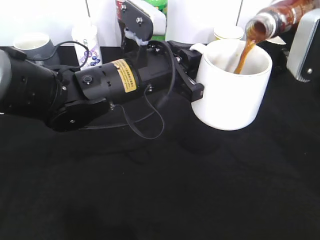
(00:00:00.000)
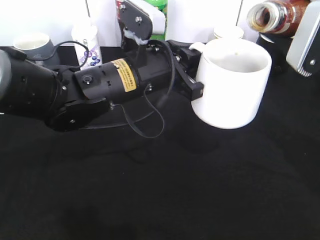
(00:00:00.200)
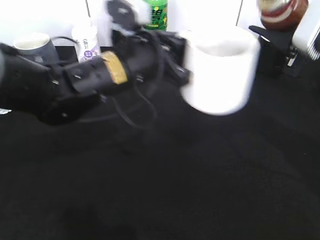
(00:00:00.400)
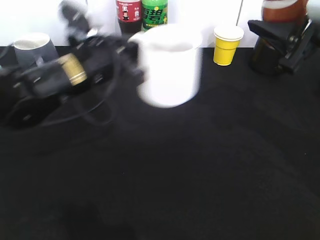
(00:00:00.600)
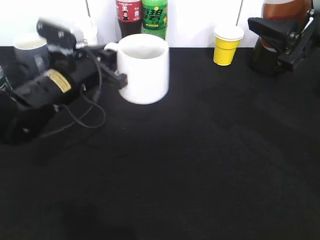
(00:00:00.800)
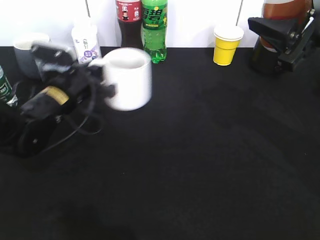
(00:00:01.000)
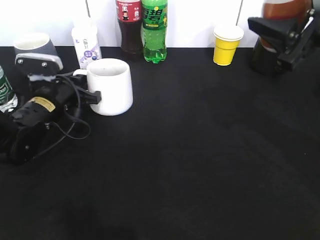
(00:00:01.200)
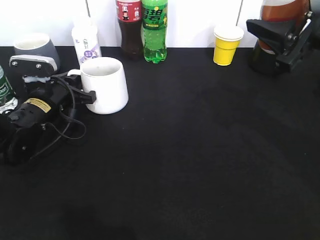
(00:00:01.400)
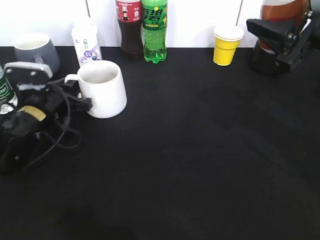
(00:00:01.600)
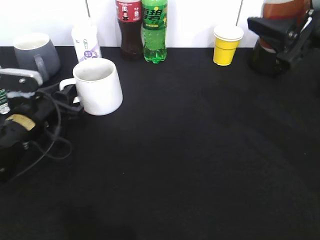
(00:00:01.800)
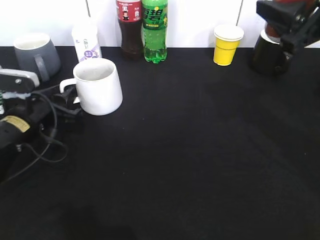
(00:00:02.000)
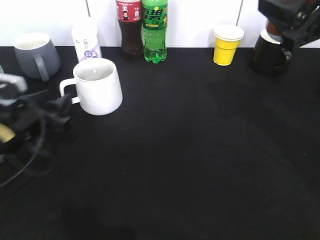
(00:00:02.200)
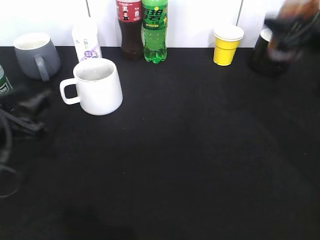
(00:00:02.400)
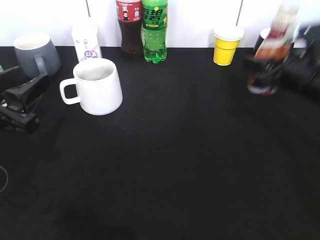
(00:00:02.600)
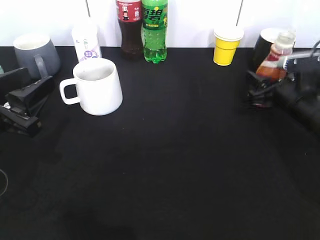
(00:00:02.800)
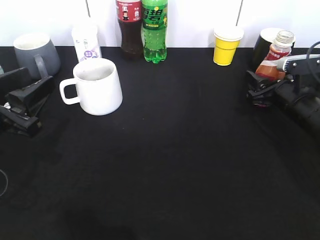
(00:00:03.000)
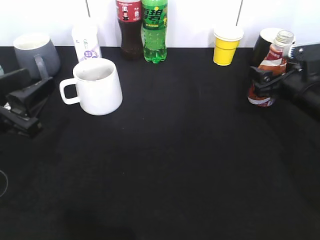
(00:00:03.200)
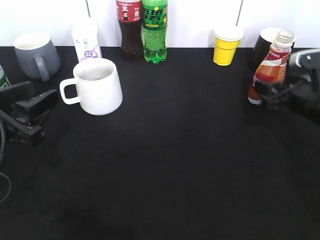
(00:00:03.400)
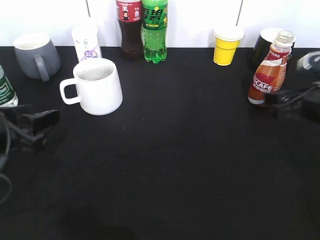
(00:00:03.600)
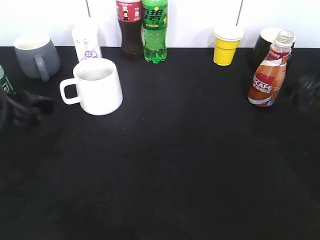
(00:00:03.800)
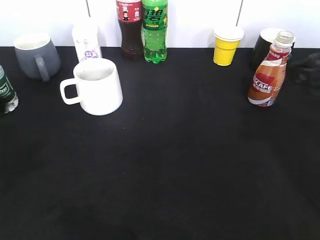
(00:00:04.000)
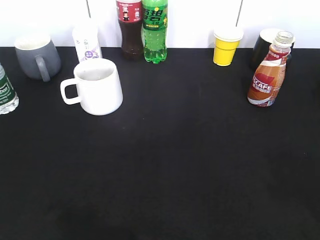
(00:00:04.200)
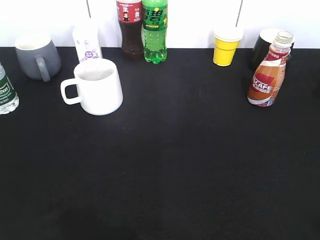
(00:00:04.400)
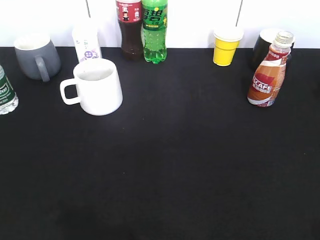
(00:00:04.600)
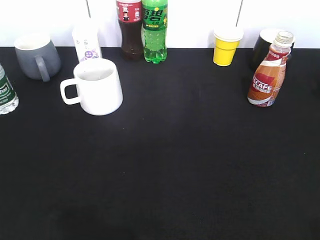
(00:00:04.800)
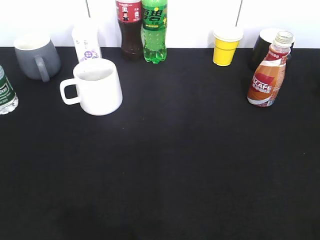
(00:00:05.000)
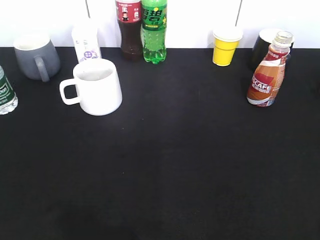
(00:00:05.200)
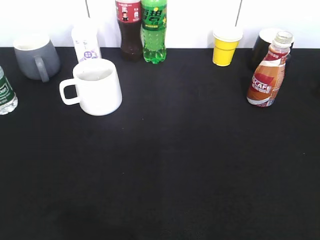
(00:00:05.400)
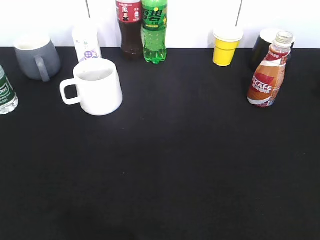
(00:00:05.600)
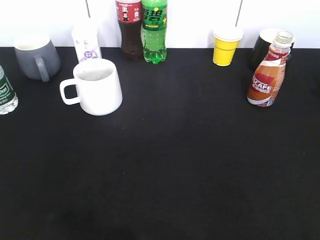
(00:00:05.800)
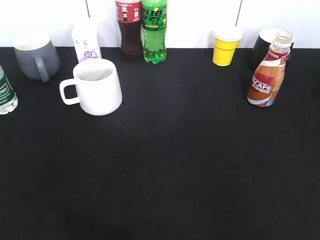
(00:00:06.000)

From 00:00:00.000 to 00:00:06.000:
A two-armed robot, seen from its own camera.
Step, from 00:00:00.600 to 00:00:02.200: Place the white cup on the table with left gripper.
Step, from 00:00:02.400 to 00:00:03.400: Place the coffee bottle on the table with right gripper.
From 00:00:00.000 to 00:00:01.600: The left gripper goes some 20 cm to the left and downward.
From 00:00:01.600 to 00:00:03.000: The right gripper goes about 20 cm downward and forward. Meanwhile the left gripper heads backward and upward, covering approximately 15 cm, and opens its fingers.
From 00:00:03.000 to 00:00:04.400: The right gripper shifts some 40 cm backward and upward, and opens and closes again. The left gripper moves backward, upward and to the left, approximately 25 cm.

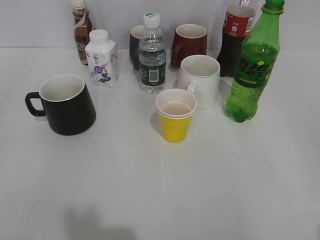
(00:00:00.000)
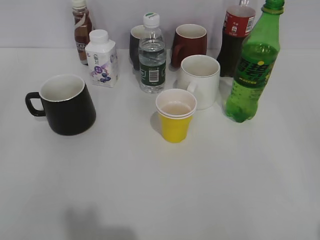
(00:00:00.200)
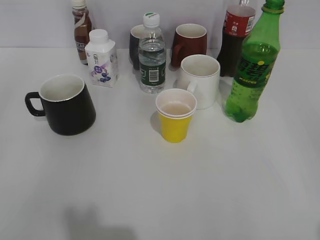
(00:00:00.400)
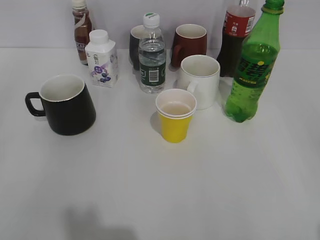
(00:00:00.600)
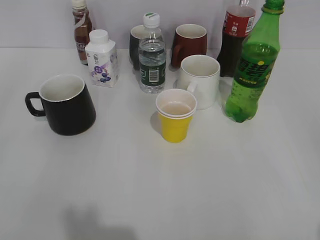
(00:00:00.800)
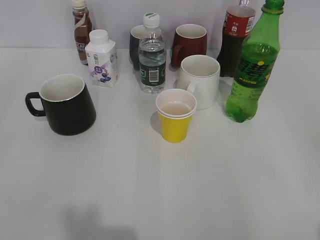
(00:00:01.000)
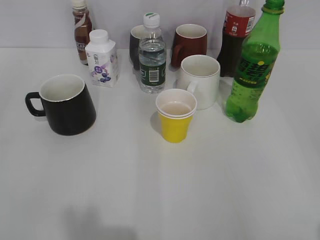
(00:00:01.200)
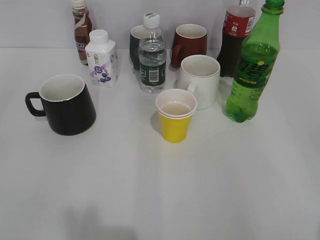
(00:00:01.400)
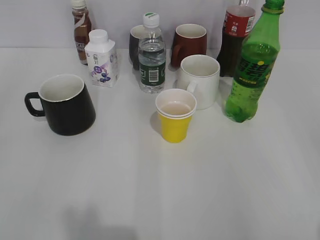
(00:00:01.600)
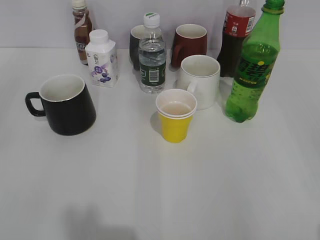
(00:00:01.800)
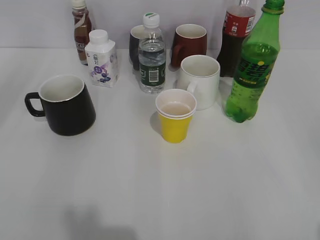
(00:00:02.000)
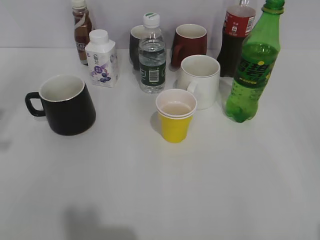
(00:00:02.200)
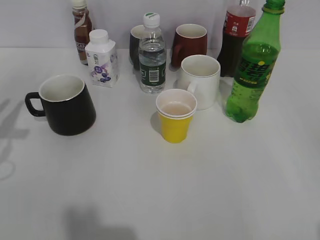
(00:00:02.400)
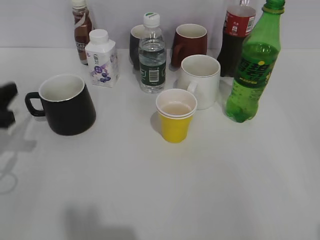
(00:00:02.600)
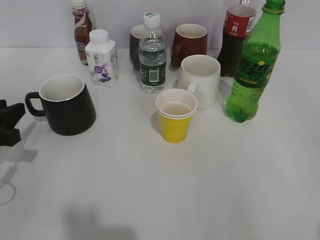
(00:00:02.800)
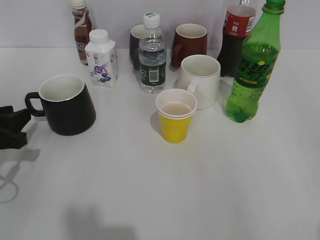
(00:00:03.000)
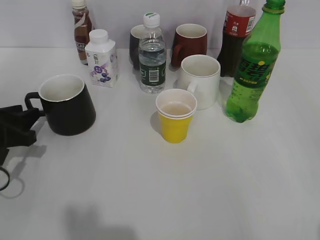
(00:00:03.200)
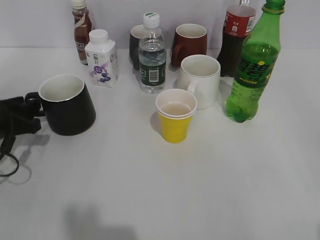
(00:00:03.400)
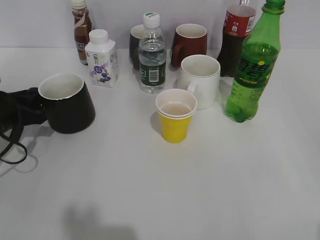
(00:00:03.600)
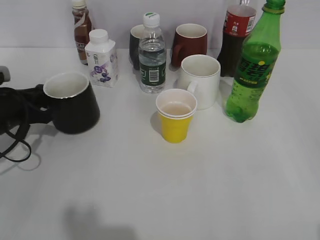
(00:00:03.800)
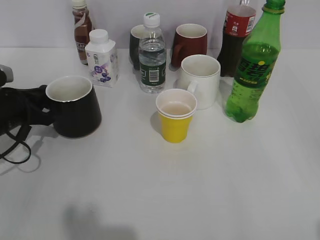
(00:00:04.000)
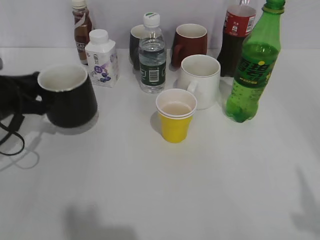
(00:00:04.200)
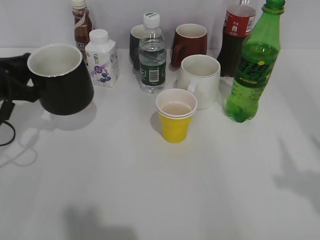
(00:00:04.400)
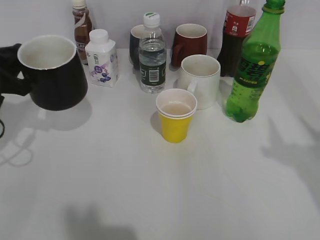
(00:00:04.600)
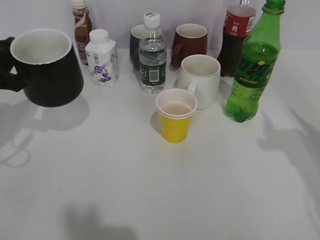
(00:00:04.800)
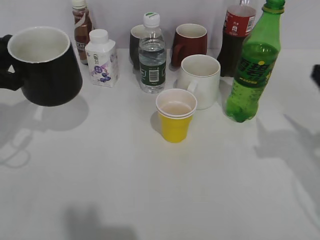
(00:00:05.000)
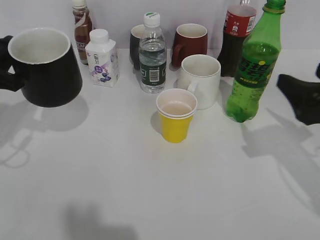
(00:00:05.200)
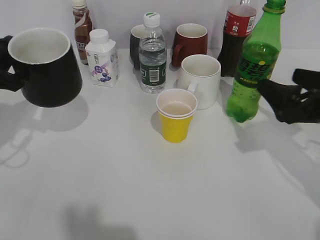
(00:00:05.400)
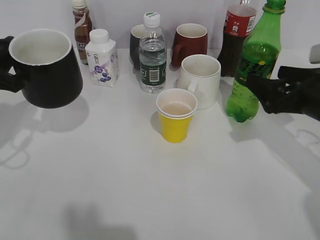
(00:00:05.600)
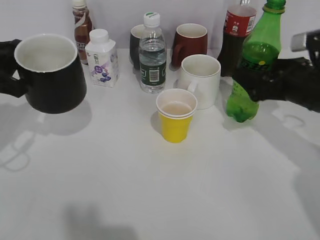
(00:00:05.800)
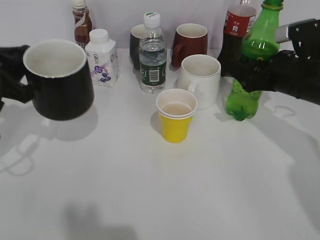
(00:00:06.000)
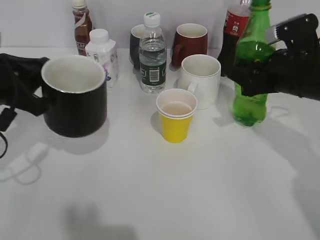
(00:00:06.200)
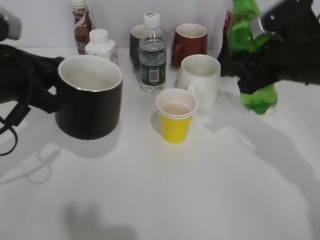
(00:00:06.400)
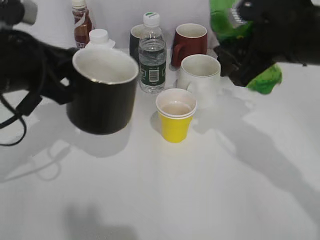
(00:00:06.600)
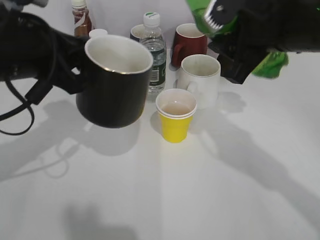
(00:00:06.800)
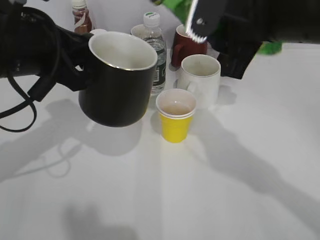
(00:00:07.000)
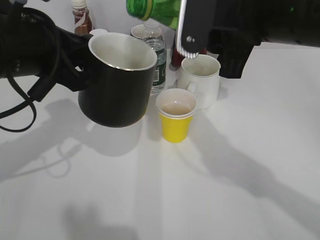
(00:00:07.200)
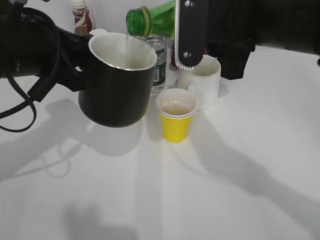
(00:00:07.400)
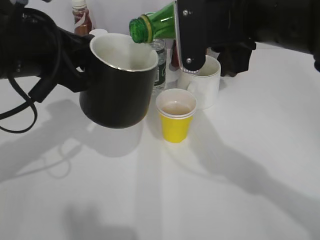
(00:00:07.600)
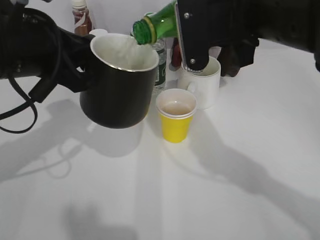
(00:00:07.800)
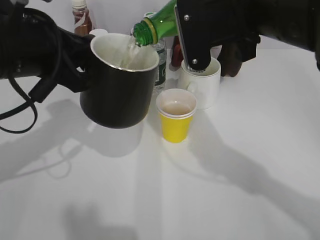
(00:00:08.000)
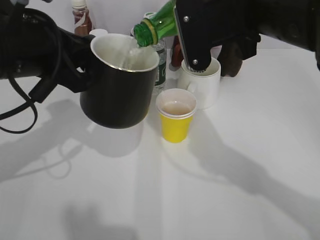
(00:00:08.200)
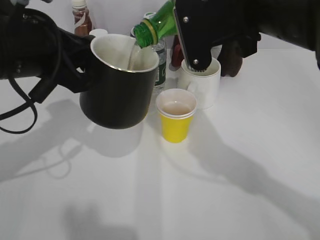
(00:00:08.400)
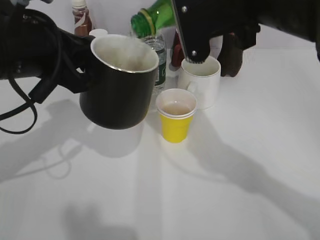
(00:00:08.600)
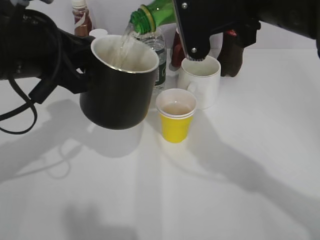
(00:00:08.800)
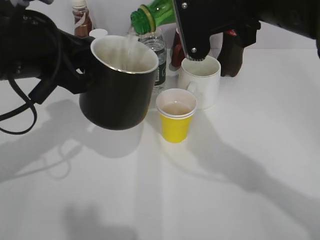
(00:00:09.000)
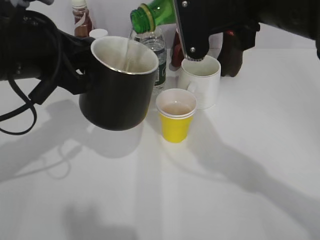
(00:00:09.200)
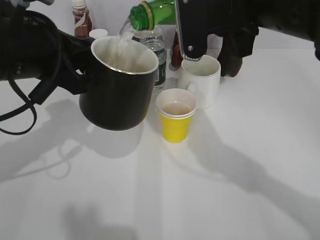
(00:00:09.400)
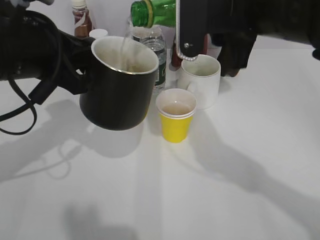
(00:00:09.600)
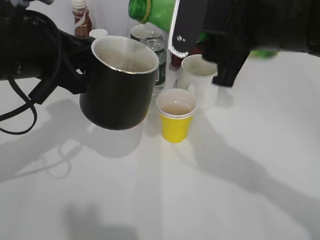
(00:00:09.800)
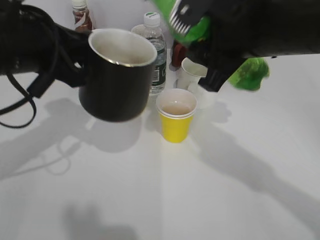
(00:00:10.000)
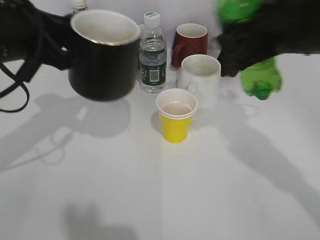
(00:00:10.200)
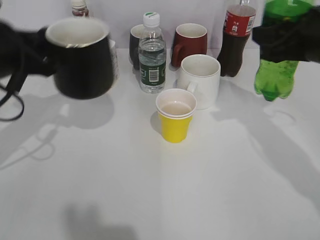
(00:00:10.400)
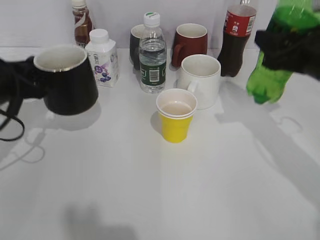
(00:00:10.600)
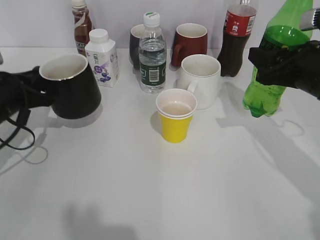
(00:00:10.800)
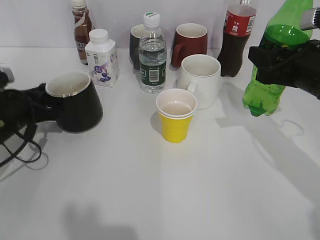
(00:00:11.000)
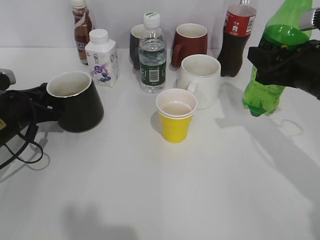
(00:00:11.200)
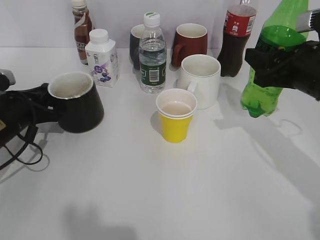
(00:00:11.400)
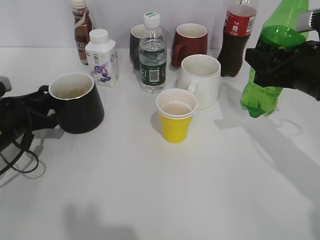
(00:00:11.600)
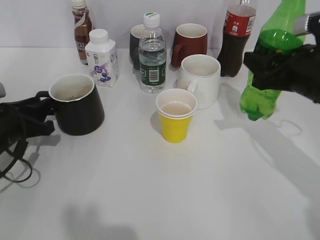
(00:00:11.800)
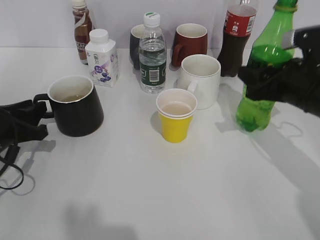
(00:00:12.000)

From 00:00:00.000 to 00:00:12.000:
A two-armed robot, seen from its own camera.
Step, from 00:00:01.600 to 00:00:03.600: Grasp the black cup with left gripper.
Step, from 00:00:03.800 to 00:00:04.800: Lift the black cup with left gripper.
Step, from 00:00:05.000 to 00:00:06.000: Grasp the bottle with sprite with right gripper.
Step, from 00:00:06.200 to 00:00:09.800: Pour the sprite from bottle to cup with right gripper.
Step, from 00:00:10.000 to 00:00:11.400: Place the black cup on the table with left gripper.
From 00:00:01.600 to 00:00:03.000: The left gripper moves forward and downward, some 25 cm.
From 00:00:03.000 to 00:00:04.400: The left gripper heads forward, covering about 5 cm, and closes.
From 00:00:04.400 to 00:00:06.000: The right gripper shifts roughly 30 cm forward and downward, and opens, then closes again.
From 00:00:06.000 to 00:00:07.600: The left gripper shifts roughly 10 cm to the right and upward. The right gripper travels to the left, upward and backward by approximately 20 cm, and closes up.
From 00:00:07.600 to 00:00:09.000: The grippers move only a little.
From 00:00:09.000 to 00:00:10.400: The right gripper is displaced to the right and downward by roughly 15 cm, while the left gripper goes approximately 5 cm to the left.
From 00:00:10.400 to 00:00:12.000: The left gripper heads downward, covering approximately 15 cm, and opens. Meanwhile the right gripper shifts about 10 cm downward.

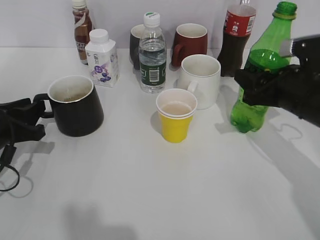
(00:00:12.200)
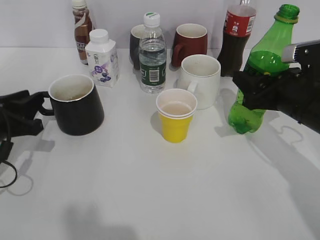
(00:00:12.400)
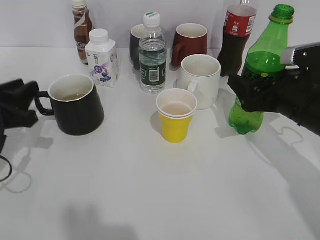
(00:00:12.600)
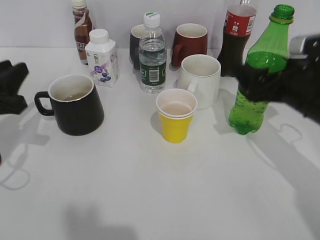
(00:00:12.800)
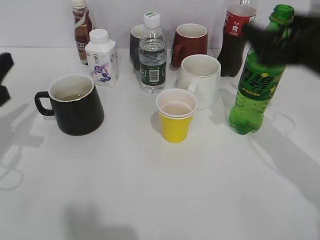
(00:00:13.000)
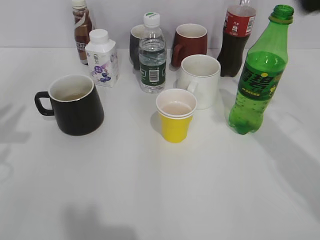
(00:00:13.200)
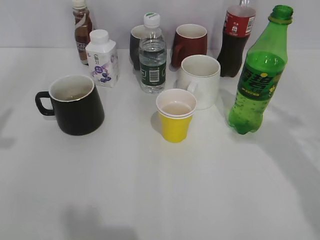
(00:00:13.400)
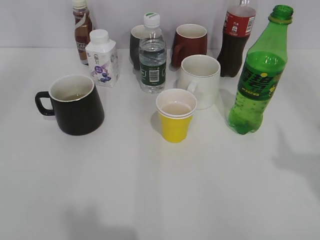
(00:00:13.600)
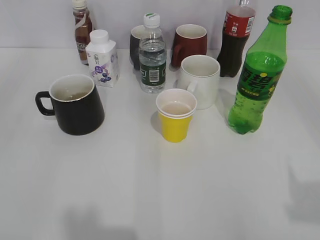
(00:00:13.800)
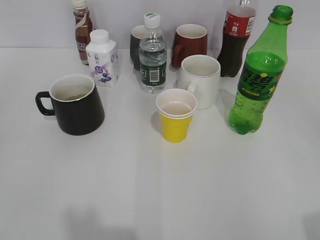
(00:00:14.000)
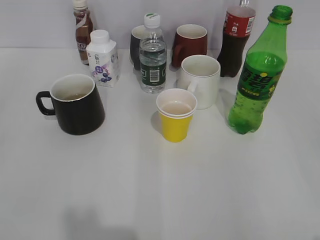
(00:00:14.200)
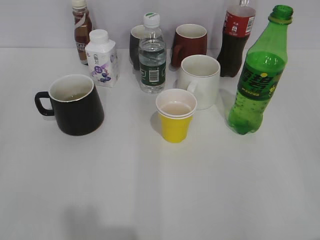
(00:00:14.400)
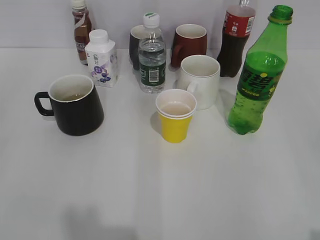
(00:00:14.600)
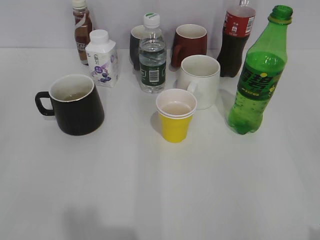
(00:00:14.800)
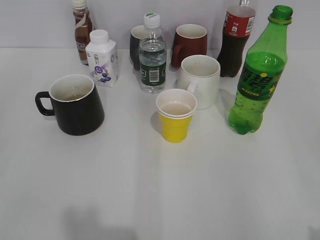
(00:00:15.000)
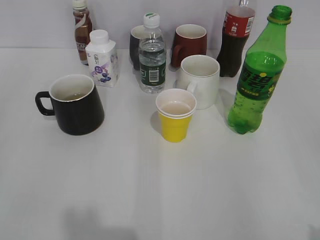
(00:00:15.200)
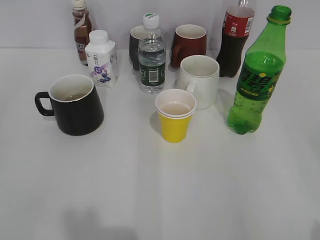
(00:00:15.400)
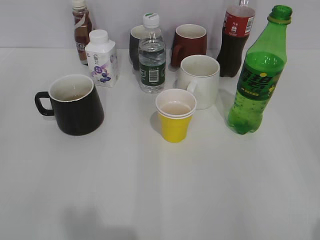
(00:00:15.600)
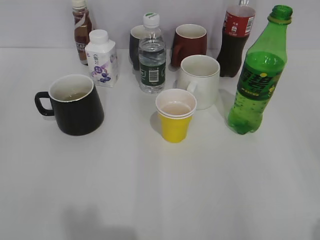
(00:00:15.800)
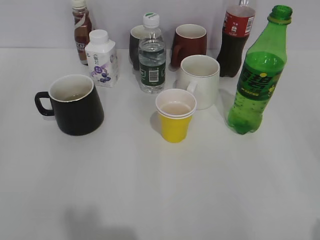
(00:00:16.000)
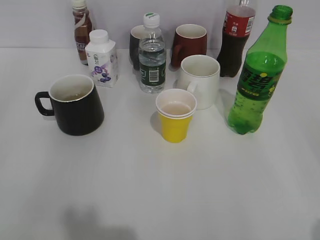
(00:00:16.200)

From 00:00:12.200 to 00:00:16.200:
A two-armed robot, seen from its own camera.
From 00:00:12.200 to 00:00:13.600: Both grippers move upward and backward, some 25 cm. The right gripper opens its fingers.
